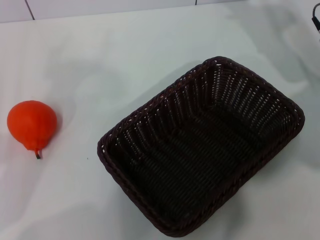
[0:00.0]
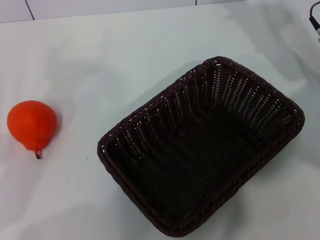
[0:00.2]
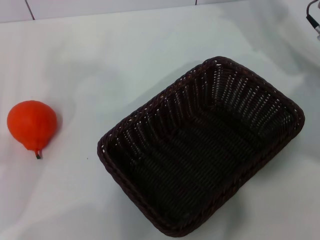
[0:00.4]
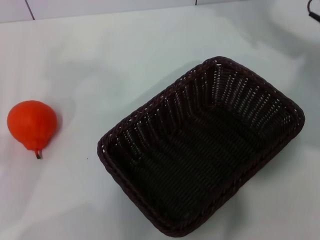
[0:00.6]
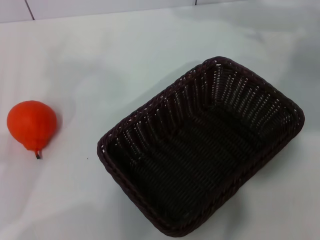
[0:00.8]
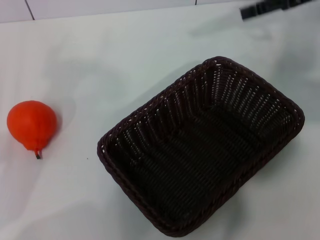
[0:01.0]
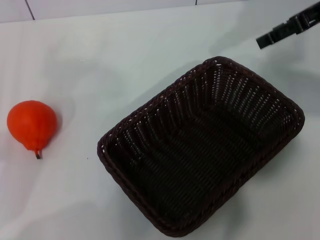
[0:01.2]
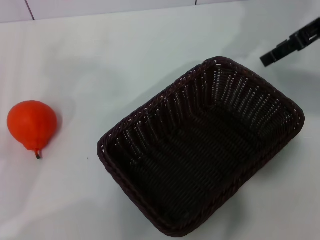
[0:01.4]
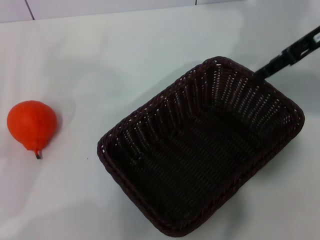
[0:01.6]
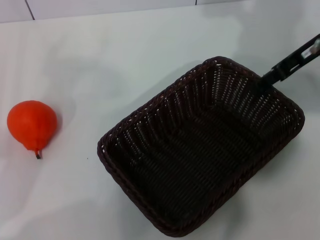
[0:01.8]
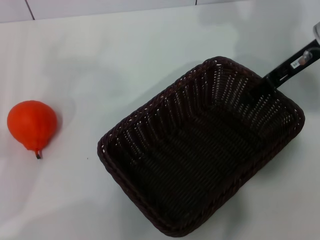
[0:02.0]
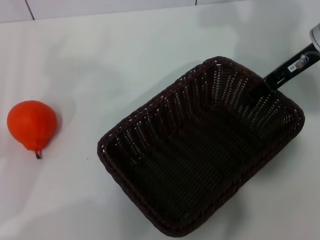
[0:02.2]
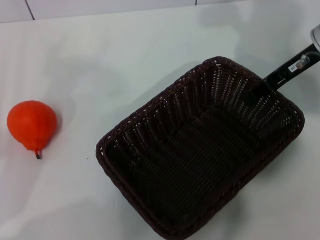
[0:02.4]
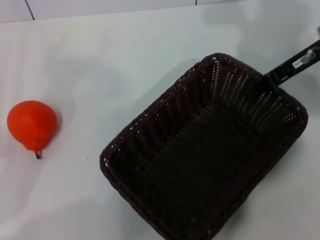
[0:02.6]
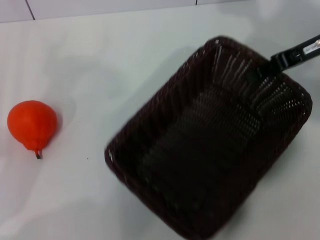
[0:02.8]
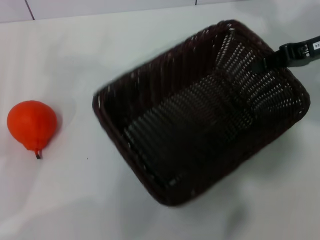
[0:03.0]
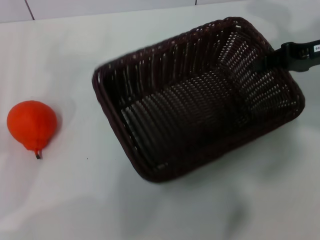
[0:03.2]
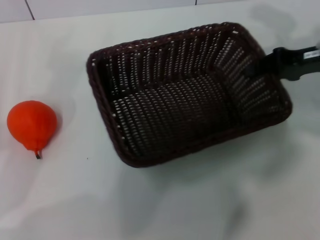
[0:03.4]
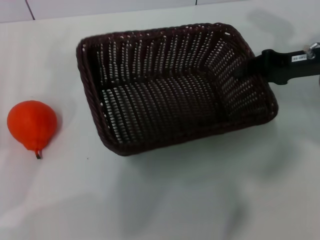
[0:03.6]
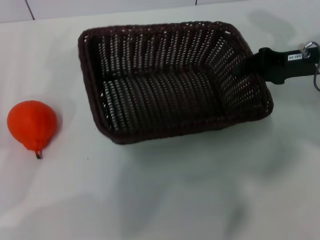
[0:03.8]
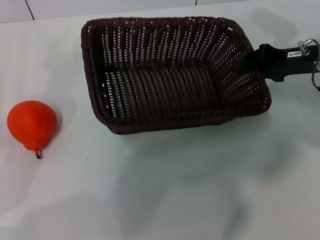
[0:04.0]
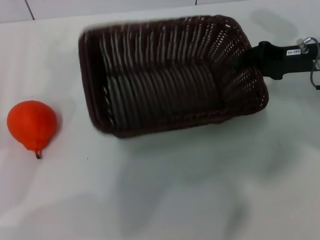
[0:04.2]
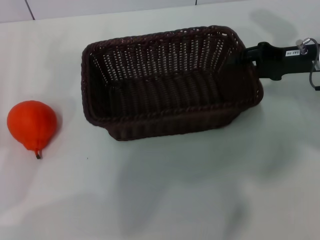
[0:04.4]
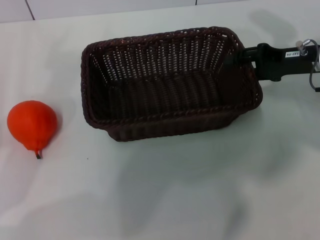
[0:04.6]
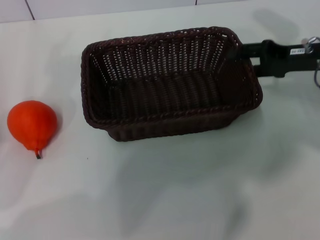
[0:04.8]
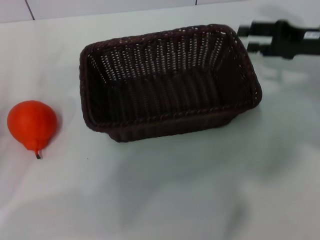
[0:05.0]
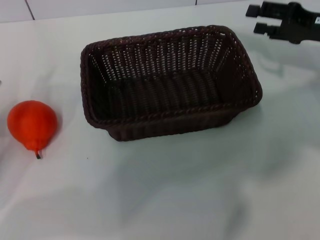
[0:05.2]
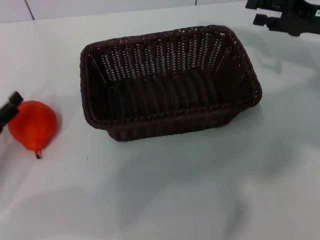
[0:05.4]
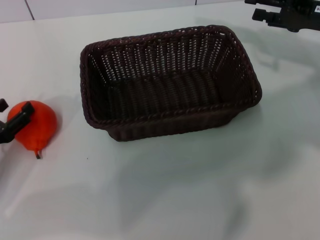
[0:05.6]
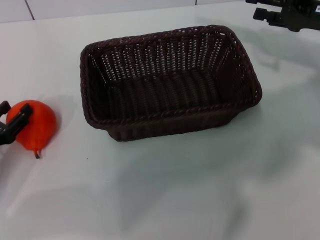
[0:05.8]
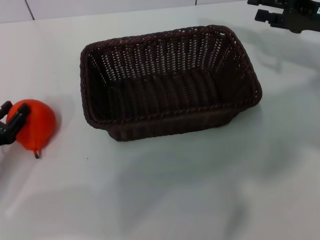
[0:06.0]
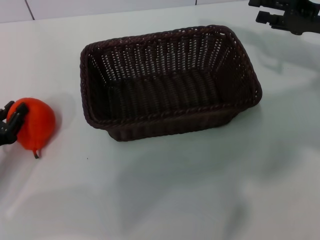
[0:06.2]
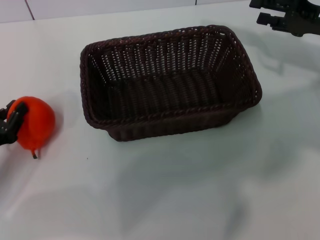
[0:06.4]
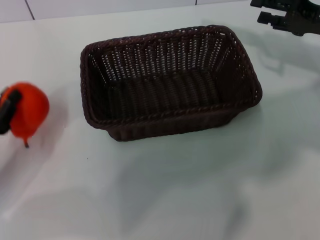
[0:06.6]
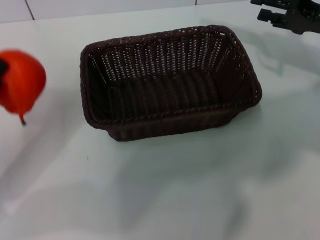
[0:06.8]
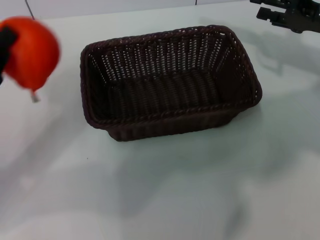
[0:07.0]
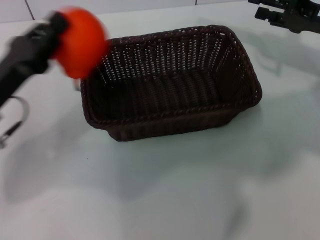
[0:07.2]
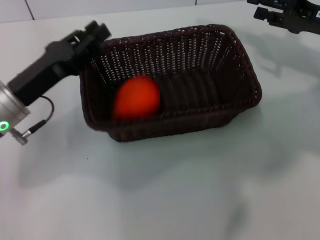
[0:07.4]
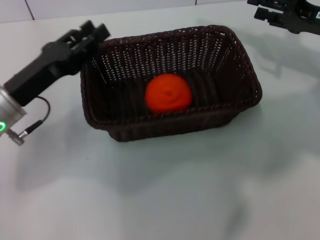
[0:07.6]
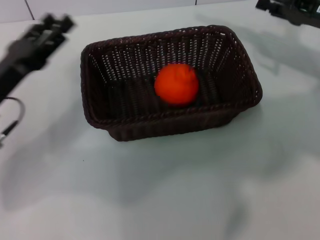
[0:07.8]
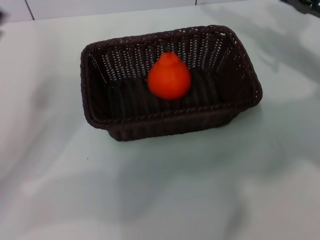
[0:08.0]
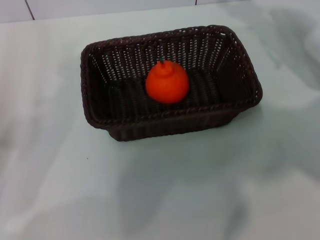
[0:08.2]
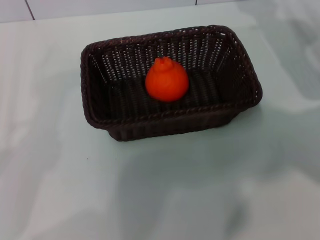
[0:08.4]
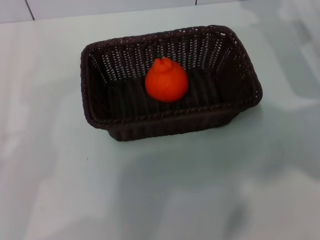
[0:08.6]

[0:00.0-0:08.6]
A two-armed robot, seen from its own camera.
Task of the whole recording: the right gripper pick up the black basket and place it horizontally in the middle of the table, the left gripper pick up the orange and place it into the black basket.
Step, 0:00.0 to 0:02.6: Pick up the dark basket with the right gripper.
Step, 0:02.8 to 0:05.0: Place the dark basket in the center of view with the right gripper.
Step, 0:05.4 to 0:06.6: Pick up the orange with the left gripper.
Step, 0:06.8 to 0:07.6: Place the orange into the dark basket with the left gripper.
0:00.0 to 0:01.4: The right gripper is displaced upward by some 10 cm.
0:01.4 to 0:02.8: The right gripper moves downward, roughly 5 cm, and closes.
0:02.8 to 0:04.4: The right gripper goes about 5 cm downward.
0:04.4 to 0:05.8: The right gripper opens. Meanwhile the left gripper goes some 5 cm downward.
0:05.8 to 0:07.2: The left gripper is displaced to the right and upward by some 10 cm, and closes.
0:07.2 to 0:08.6: The left gripper heads backward and to the left, covering approximately 15 cm, and opens up.
